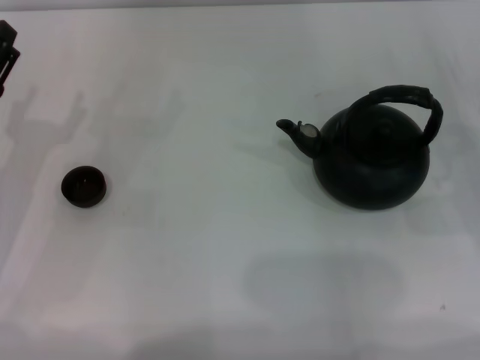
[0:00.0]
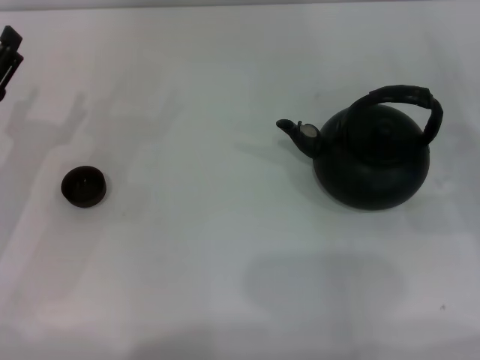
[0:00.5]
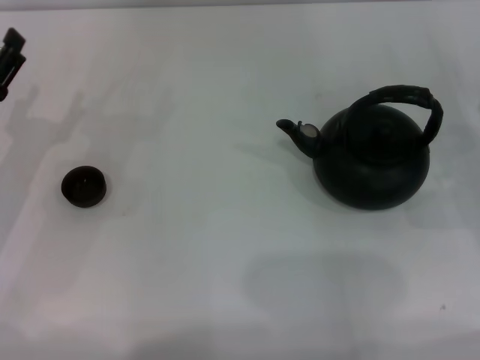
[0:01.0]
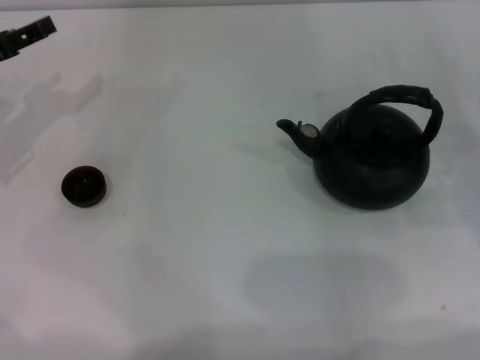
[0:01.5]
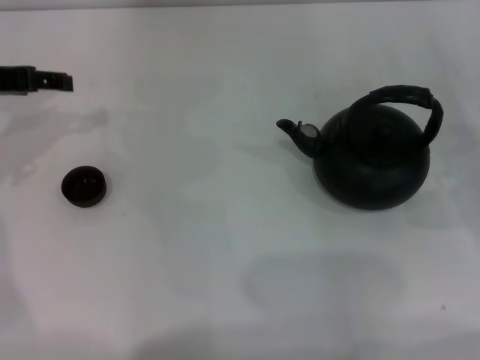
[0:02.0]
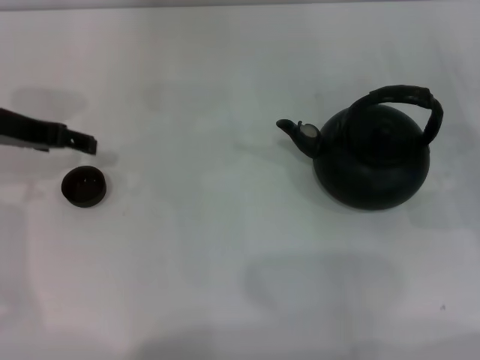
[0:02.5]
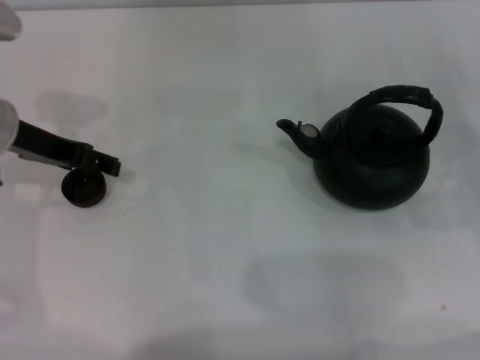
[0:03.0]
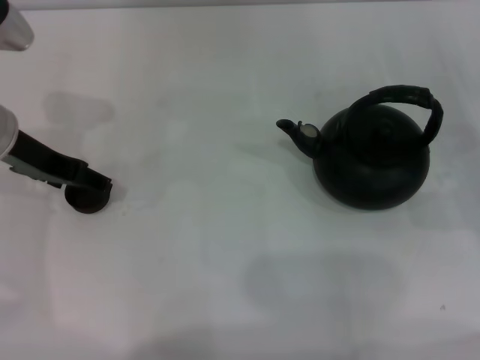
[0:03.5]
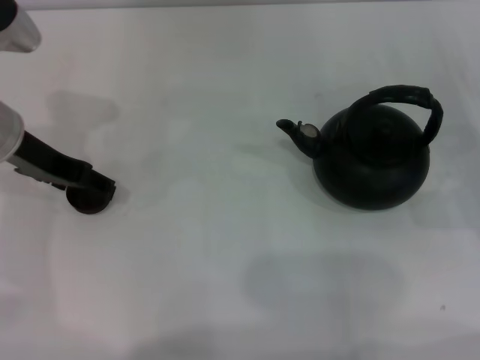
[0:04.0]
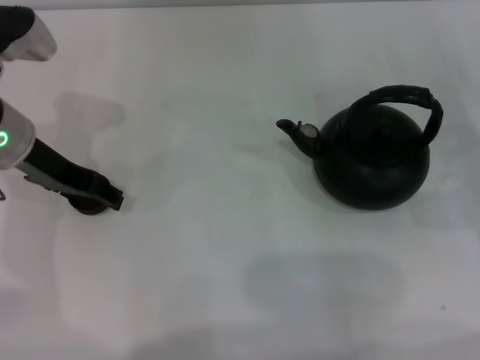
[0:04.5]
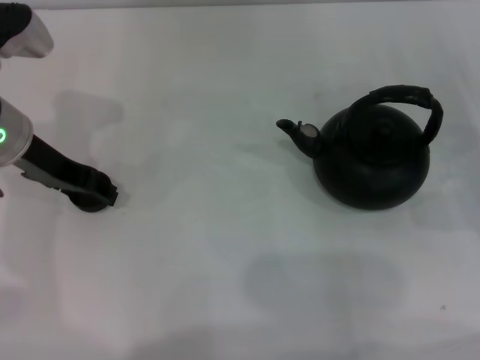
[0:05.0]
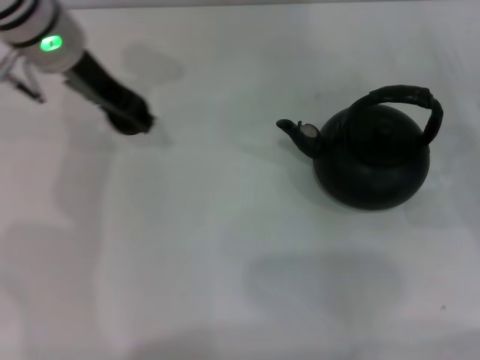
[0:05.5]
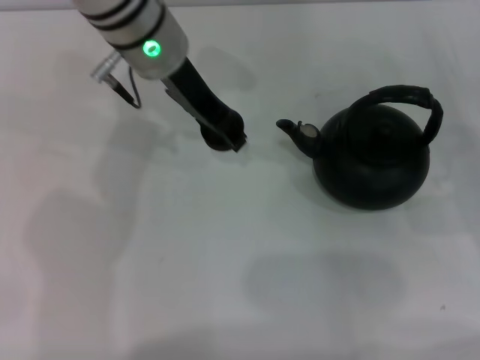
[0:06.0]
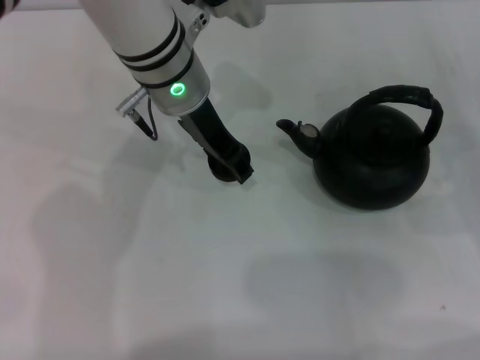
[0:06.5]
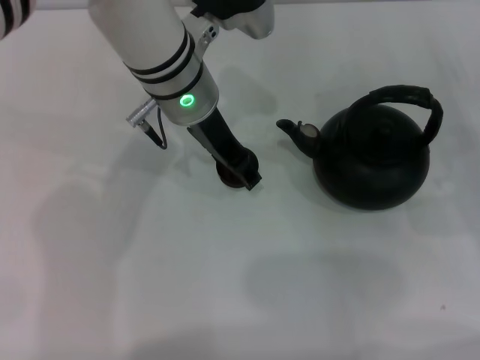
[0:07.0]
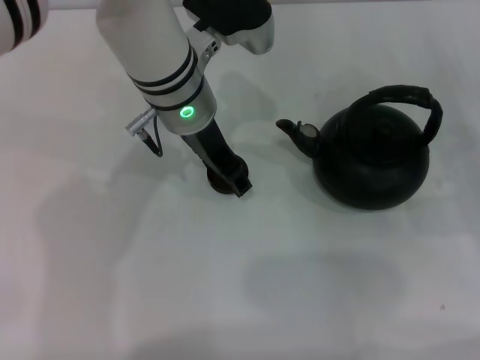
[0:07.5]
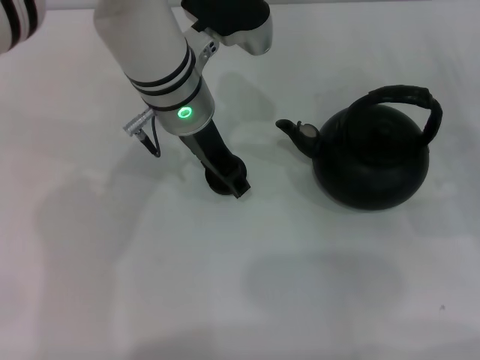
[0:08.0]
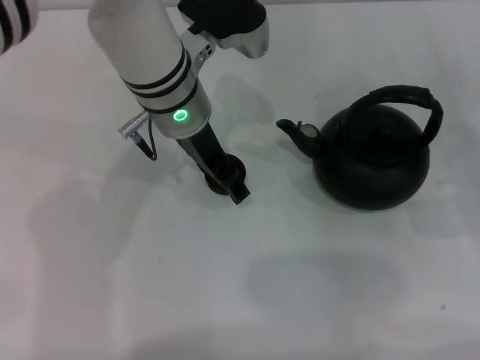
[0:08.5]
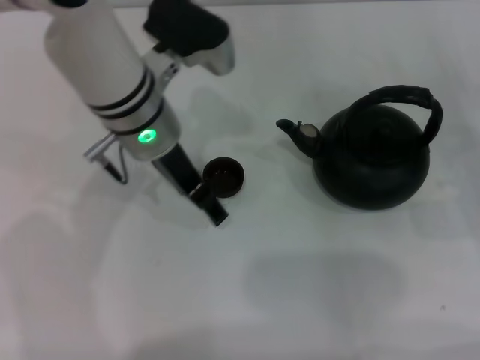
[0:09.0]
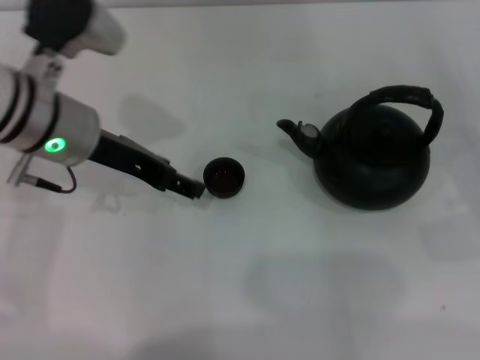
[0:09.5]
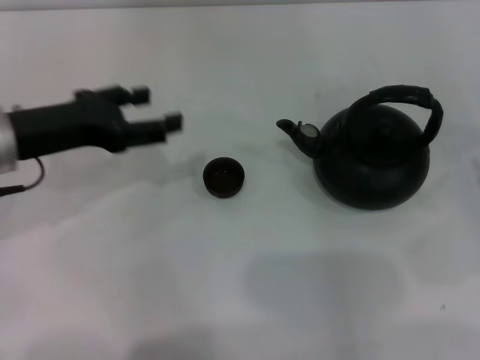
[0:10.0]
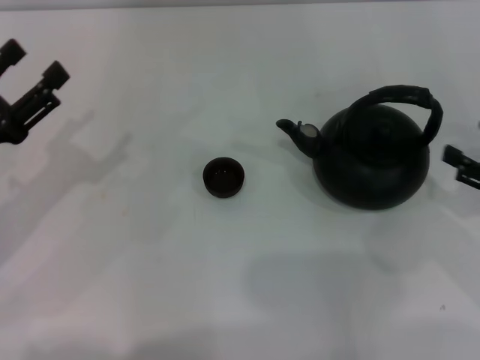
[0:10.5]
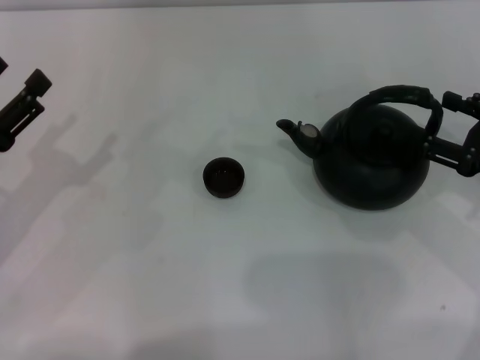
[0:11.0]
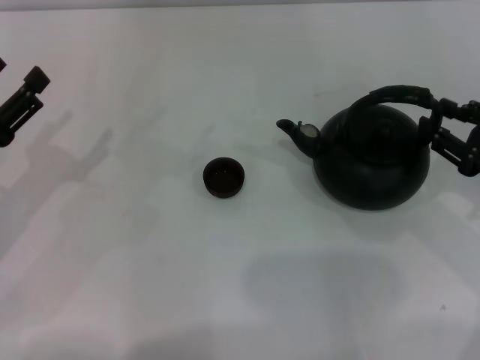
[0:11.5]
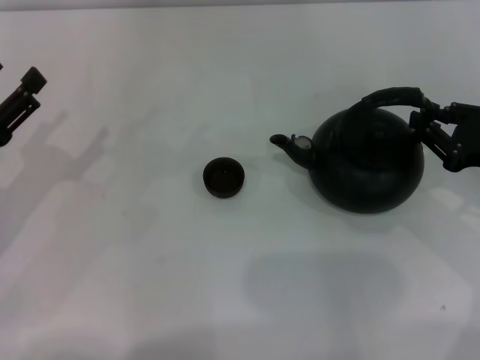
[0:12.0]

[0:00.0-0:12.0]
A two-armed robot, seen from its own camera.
Task of the whole recording: Grasp the handle of the teapot with one hand and pour tea into the teacup.
Step, 0:00.0 to 0:05.0: Pick up the teacup with the left gripper.
Step, 0:05.5 to 0:09.0: Place the teacup in the center of view with the left gripper.
0:00.0 to 0:02.0: The left gripper travels upward and forward by approximately 15 cm.
0:02.0 to 0:04.0: The left gripper is displaced to the right by roughly 5 cm.
0:04.0 to 0:06.0: The left gripper travels to the right and forward by approximately 15 cm, and closes.
0:06.0 to 0:08.0: The left gripper ends up approximately 5 cm from where it was, and opens its fingers.
0:08.0 to 0:10.0: The right gripper moves backward, some 5 cm. The left gripper shifts about 20 cm to the left and backward.
0:10.0 to 0:12.0: The right gripper goes roughly 10 cm to the left and forward, and closes; the left gripper goes some 10 cm to the left, downward and backward.

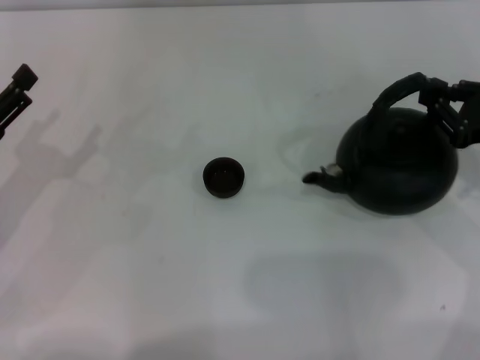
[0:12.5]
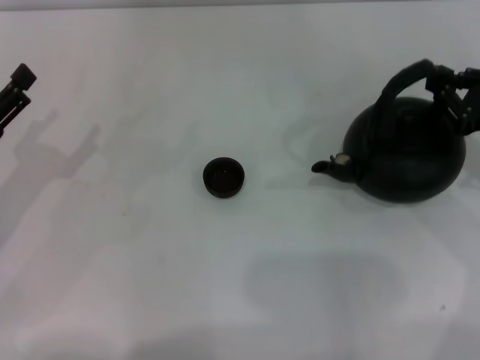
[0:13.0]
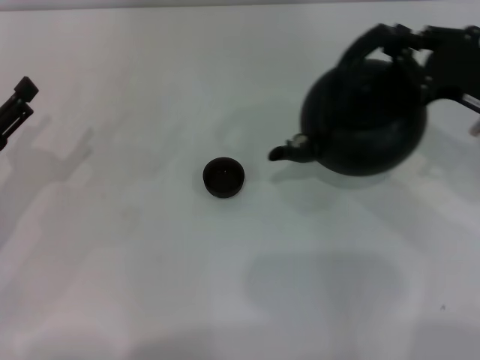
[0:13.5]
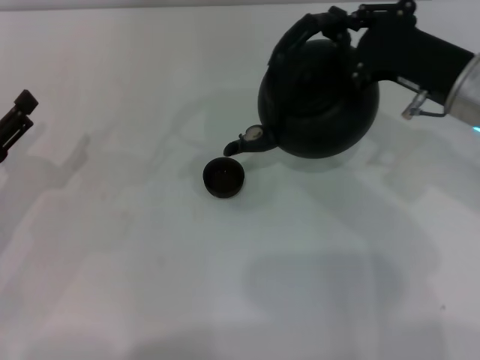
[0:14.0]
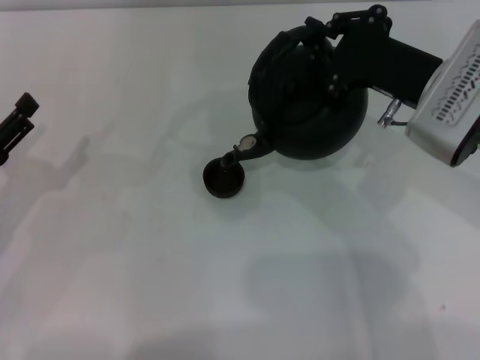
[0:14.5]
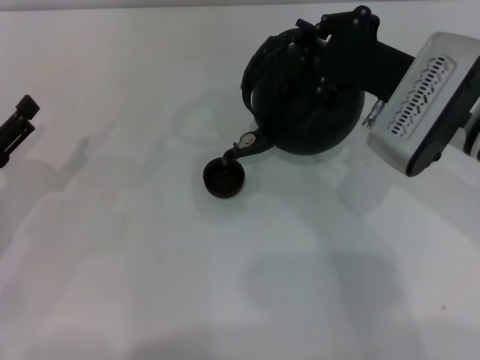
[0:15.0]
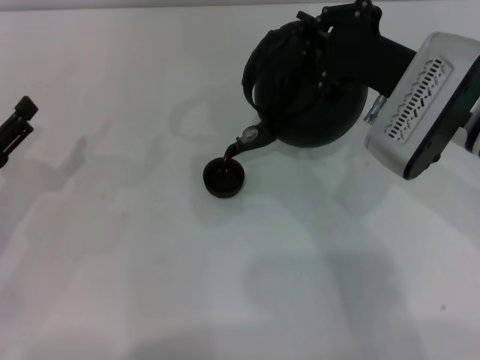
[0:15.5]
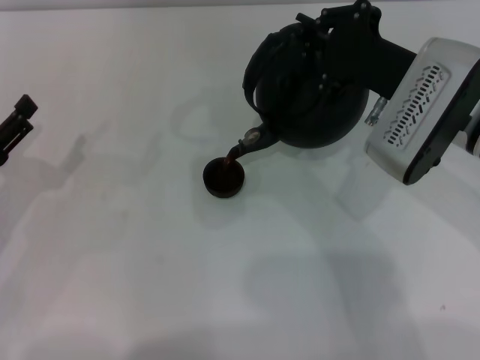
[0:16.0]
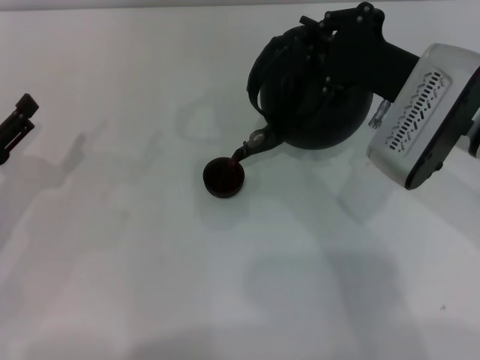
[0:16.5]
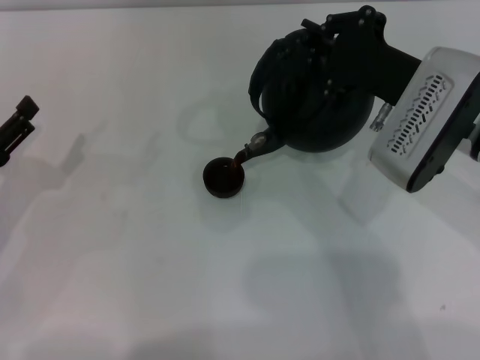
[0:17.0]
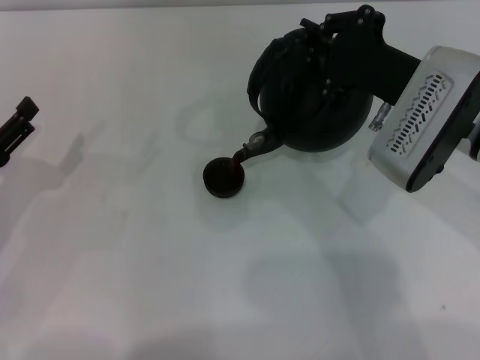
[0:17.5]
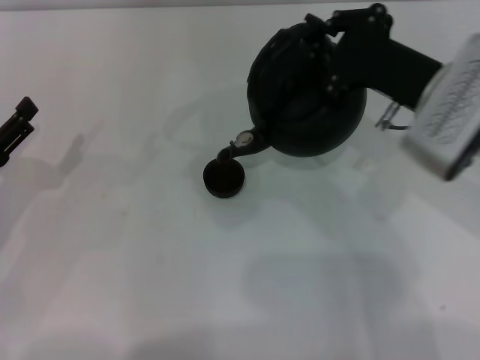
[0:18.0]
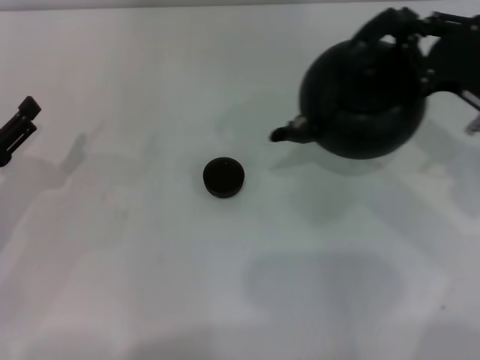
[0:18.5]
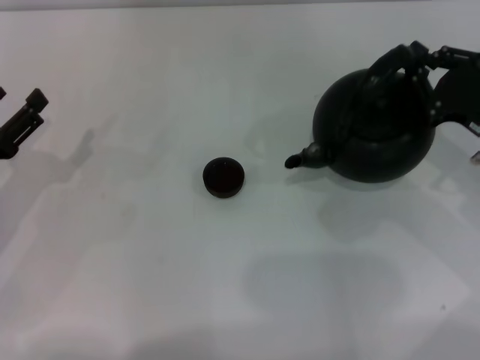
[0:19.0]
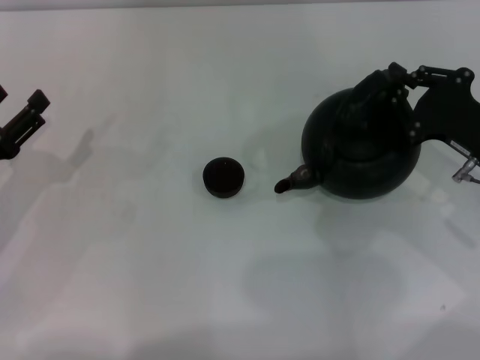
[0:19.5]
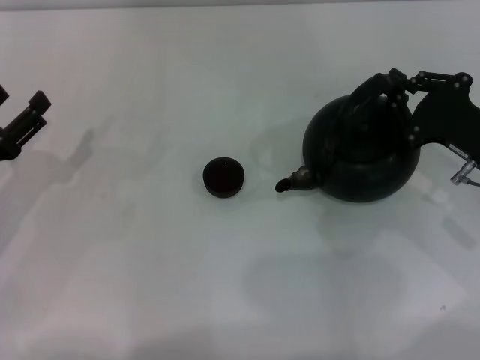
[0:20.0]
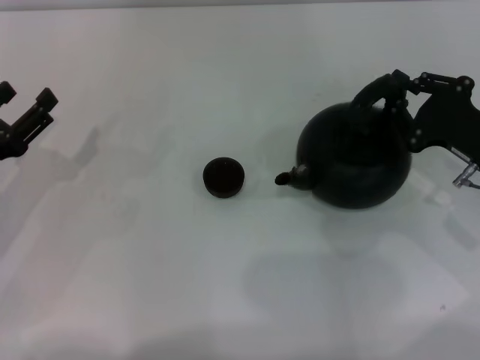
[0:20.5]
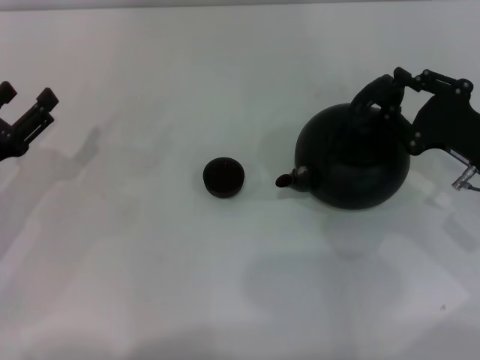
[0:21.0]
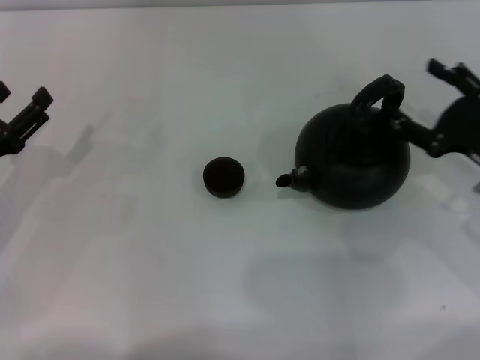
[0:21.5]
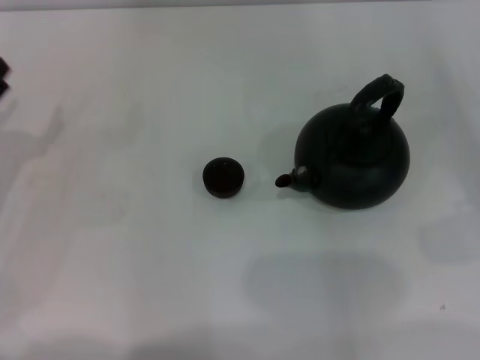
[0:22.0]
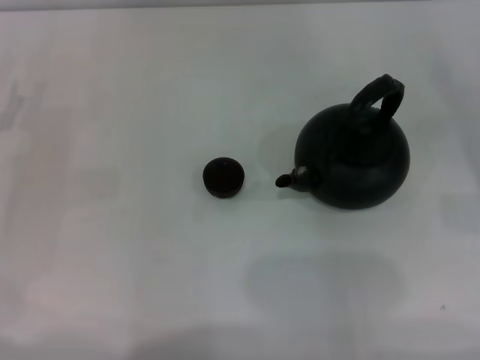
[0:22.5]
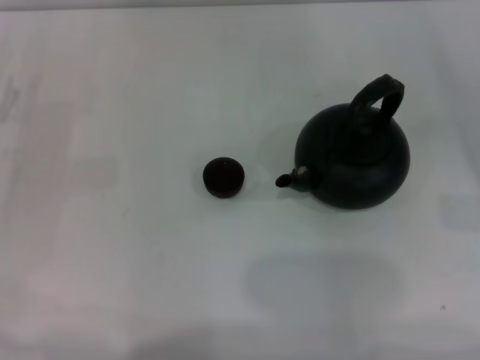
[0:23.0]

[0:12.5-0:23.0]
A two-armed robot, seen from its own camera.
Task of the whole recording: Grasp the handle of the teapot with one hand and pour tea into the teacup.
Step, 0:13.0 to 0:18.0: Pour tea into the teacup with the right gripper.
Step, 0:18.5 to 0:21.0: Put down the teapot with the right gripper.
0:12.5 to 0:14.5: The right gripper is displaced to the left by approximately 15 cm.
0:14.5 to 0:16.5: The grippers stay close to where they were, moving slightly.
0:16.5 to 0:19.0: The right gripper goes approximately 15 cm to the right and downward.
0:19.0 to 0:21.0: The grippers make only small movements.
0:21.0 to 0:23.0: The left gripper is displaced forward by approximately 5 cm; the right gripper travels to the right by approximately 10 cm, and opens up.

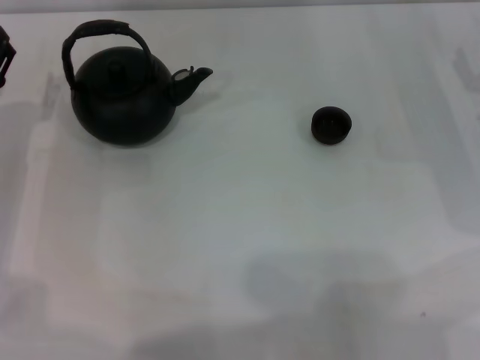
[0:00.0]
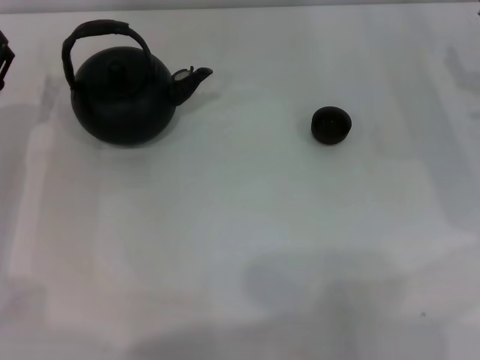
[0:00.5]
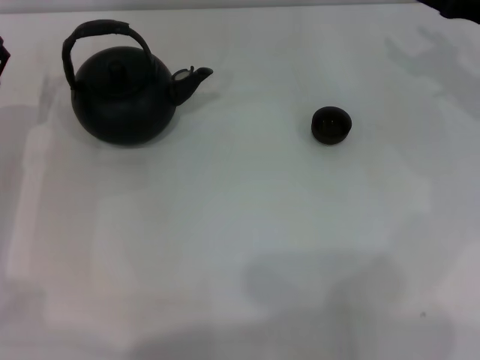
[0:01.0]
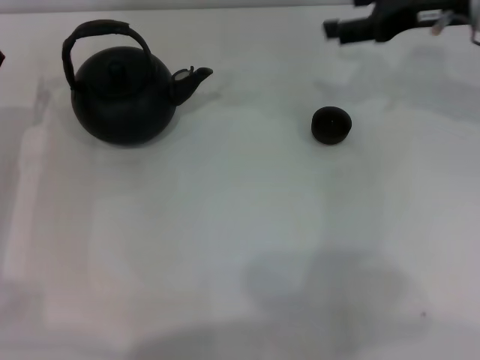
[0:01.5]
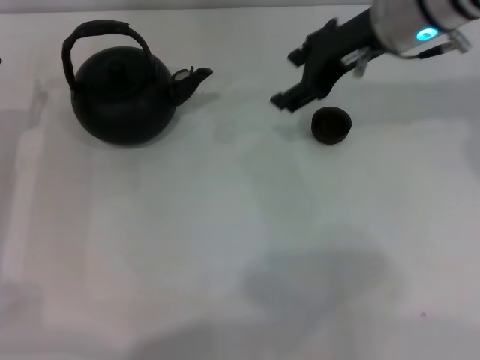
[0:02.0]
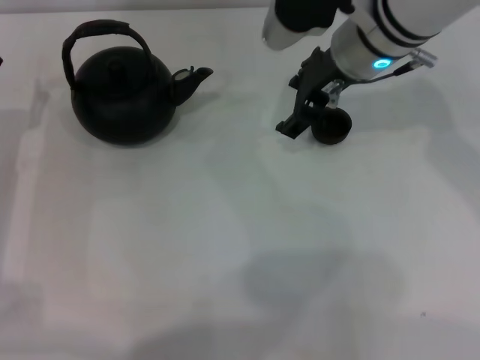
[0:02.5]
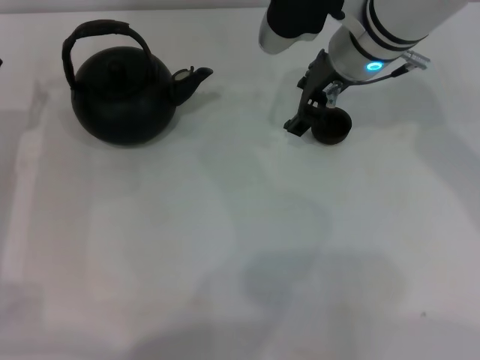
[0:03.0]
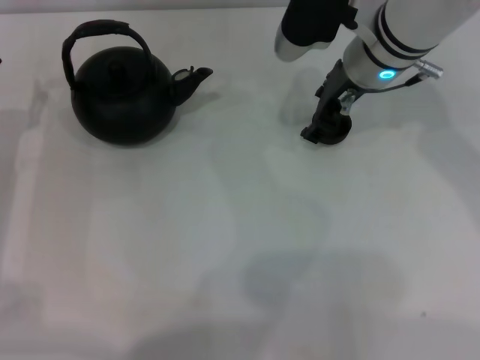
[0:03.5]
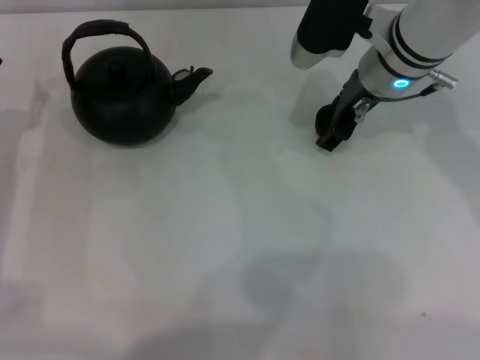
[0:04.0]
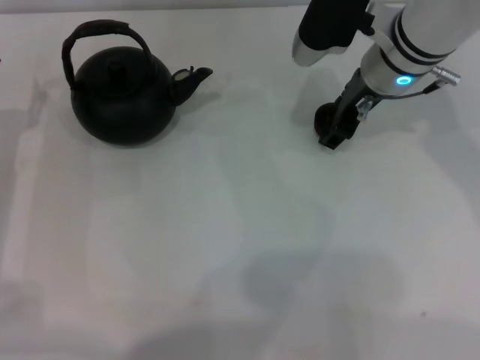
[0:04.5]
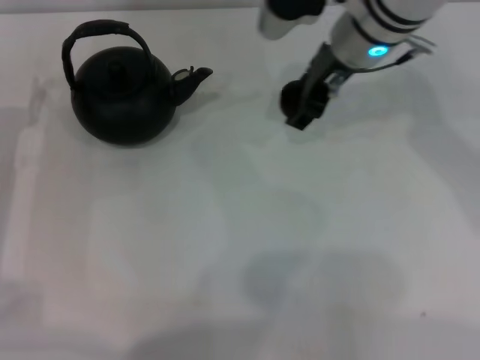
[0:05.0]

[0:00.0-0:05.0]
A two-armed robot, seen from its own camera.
Task of the whole recording: Grasp the handle of the teapot with one hand and pour tea into the teacup.
Step, 0:00.0 to 0:05.0: Pick up the teacup with the right gripper.
0:00.0 to 0:02.5: The right gripper travels to the left and upward by approximately 25 cm.
0:02.5 to 0:05.0: The grippers stay close to where they were, moving slightly.
